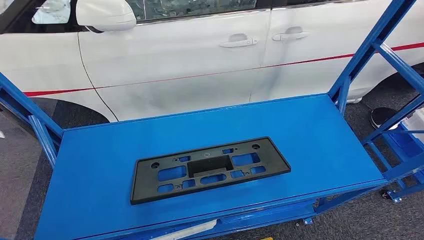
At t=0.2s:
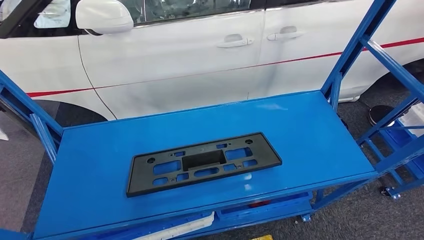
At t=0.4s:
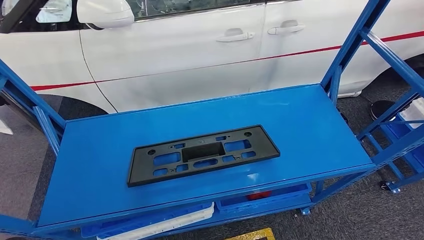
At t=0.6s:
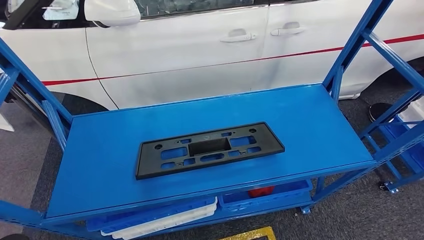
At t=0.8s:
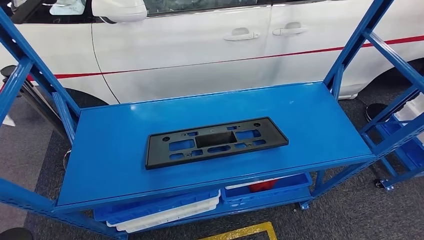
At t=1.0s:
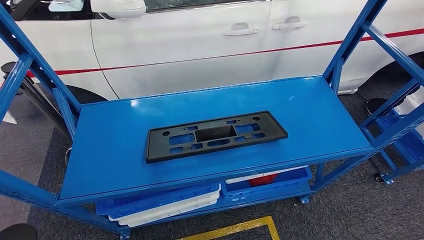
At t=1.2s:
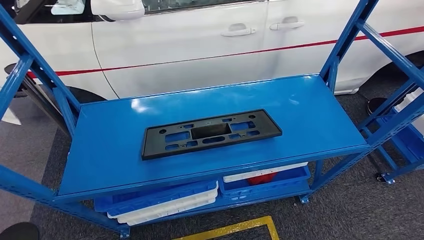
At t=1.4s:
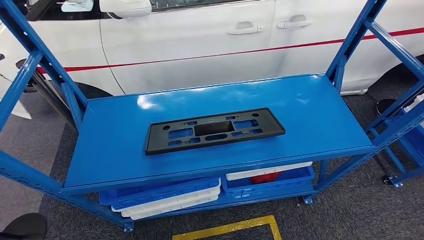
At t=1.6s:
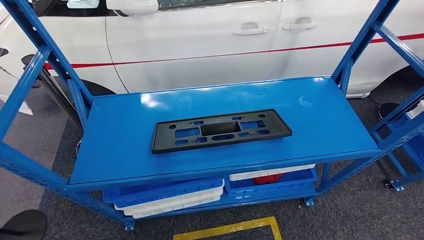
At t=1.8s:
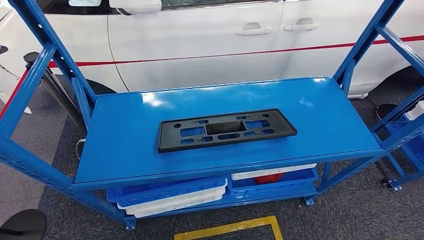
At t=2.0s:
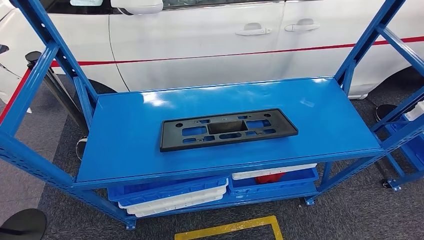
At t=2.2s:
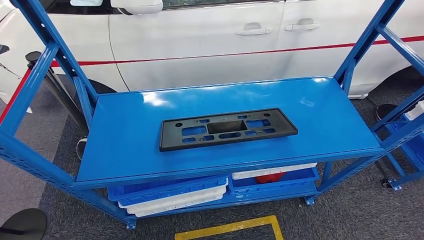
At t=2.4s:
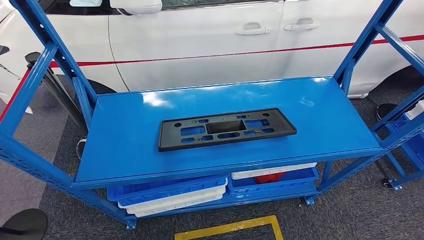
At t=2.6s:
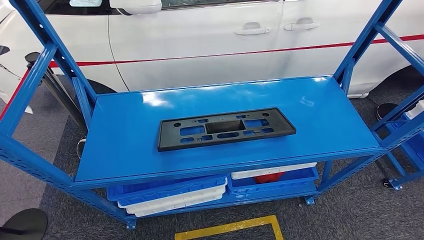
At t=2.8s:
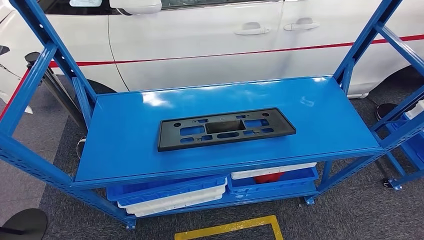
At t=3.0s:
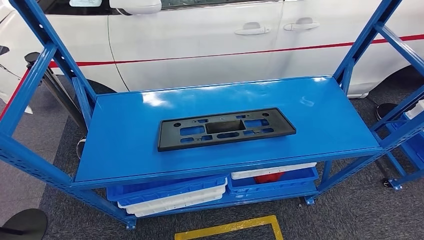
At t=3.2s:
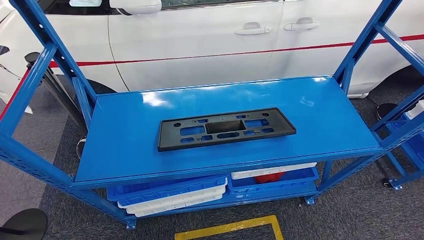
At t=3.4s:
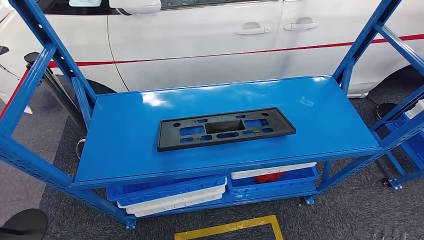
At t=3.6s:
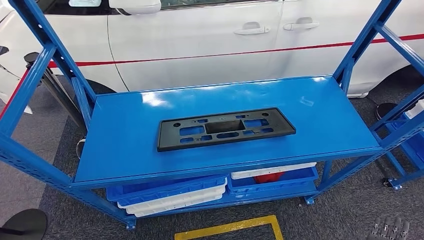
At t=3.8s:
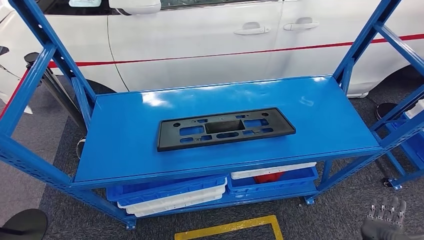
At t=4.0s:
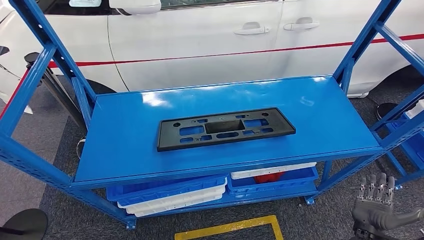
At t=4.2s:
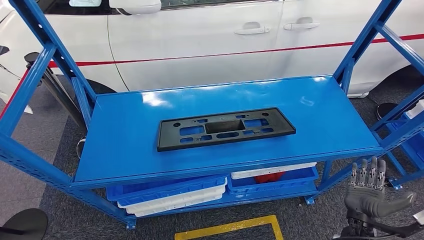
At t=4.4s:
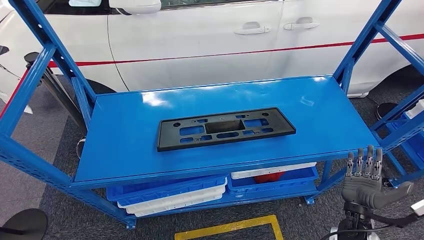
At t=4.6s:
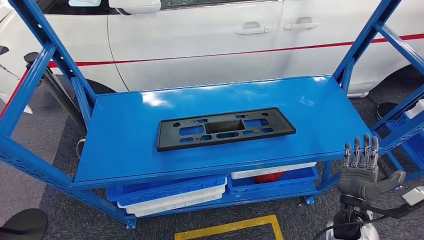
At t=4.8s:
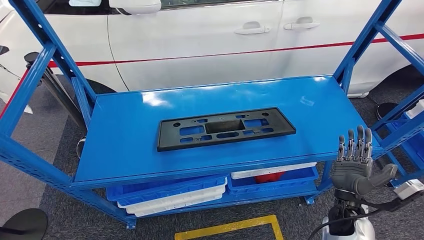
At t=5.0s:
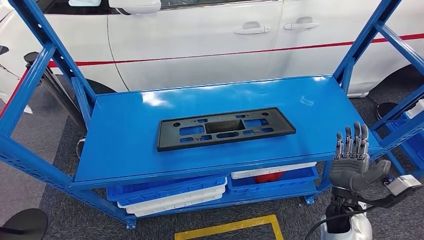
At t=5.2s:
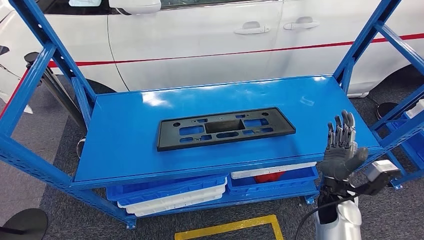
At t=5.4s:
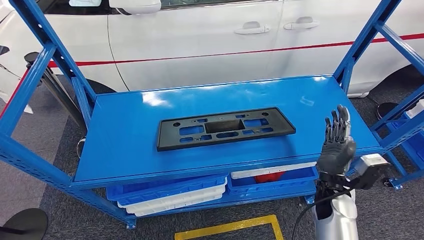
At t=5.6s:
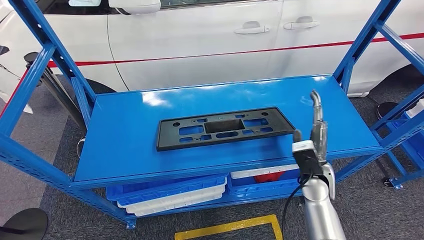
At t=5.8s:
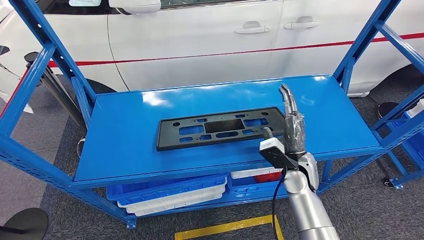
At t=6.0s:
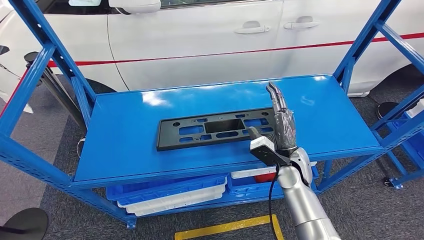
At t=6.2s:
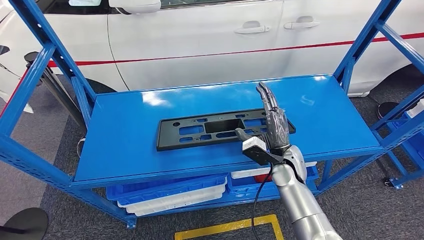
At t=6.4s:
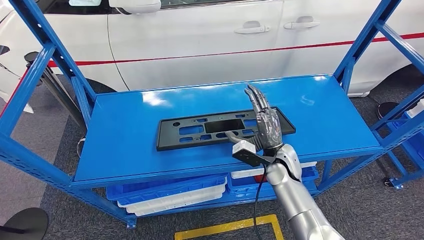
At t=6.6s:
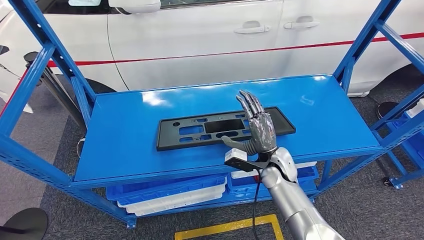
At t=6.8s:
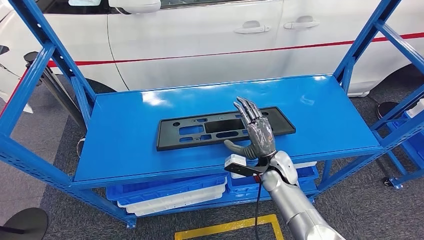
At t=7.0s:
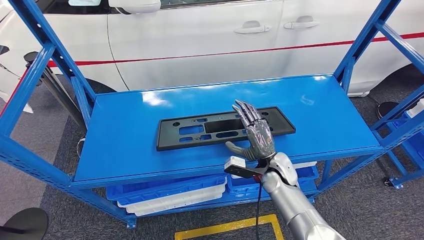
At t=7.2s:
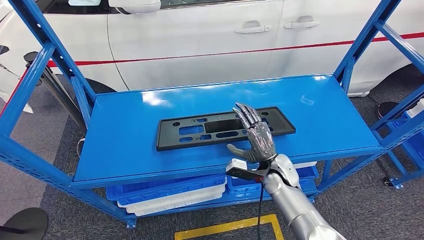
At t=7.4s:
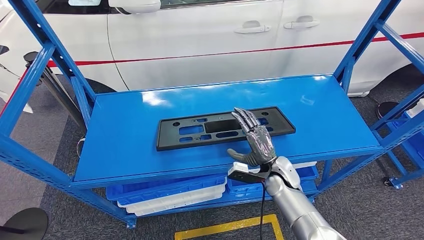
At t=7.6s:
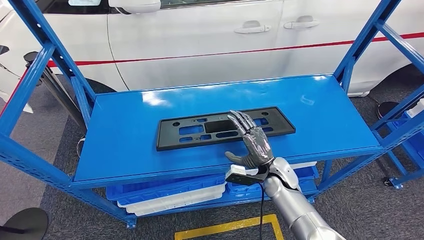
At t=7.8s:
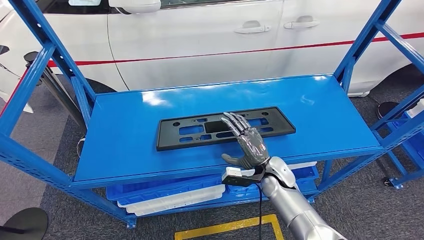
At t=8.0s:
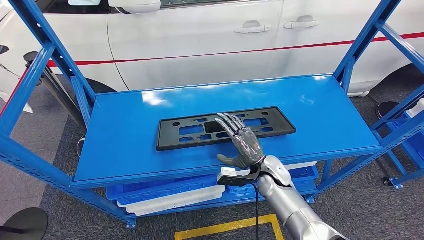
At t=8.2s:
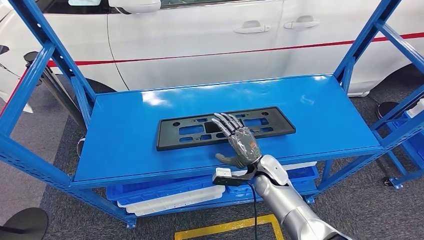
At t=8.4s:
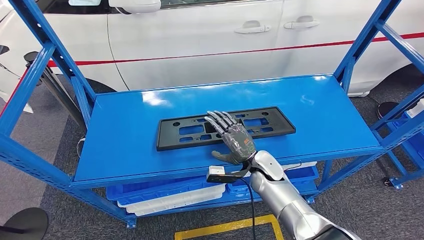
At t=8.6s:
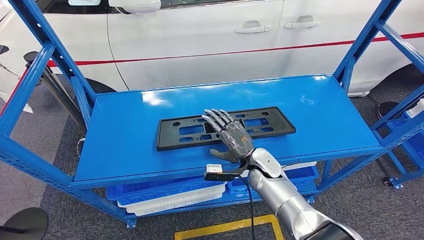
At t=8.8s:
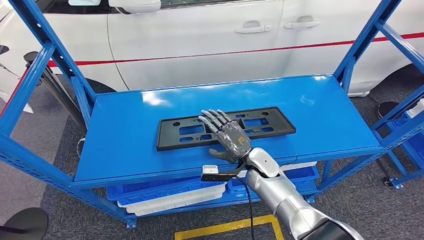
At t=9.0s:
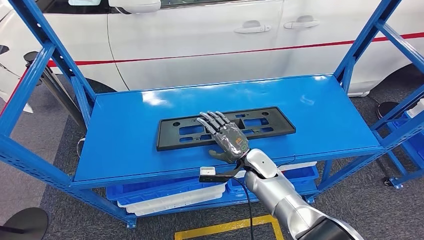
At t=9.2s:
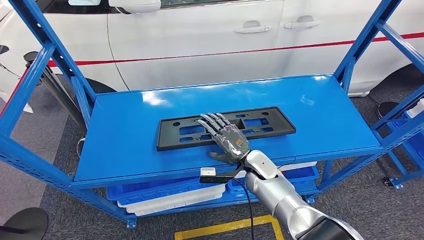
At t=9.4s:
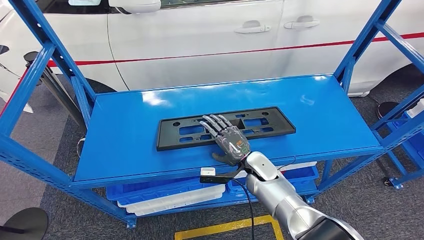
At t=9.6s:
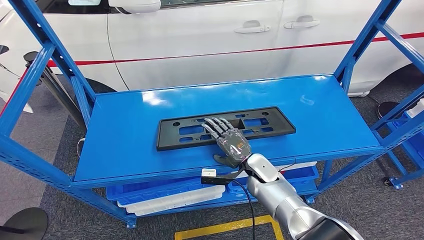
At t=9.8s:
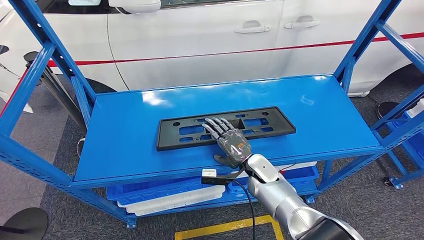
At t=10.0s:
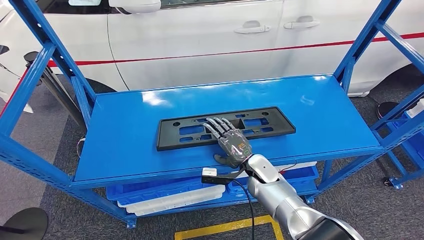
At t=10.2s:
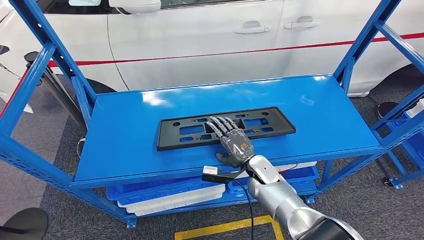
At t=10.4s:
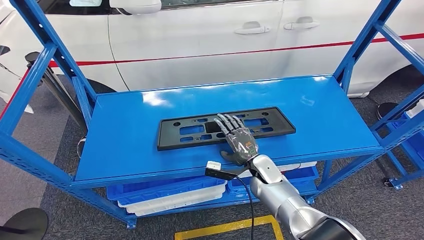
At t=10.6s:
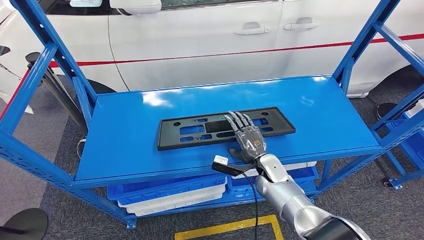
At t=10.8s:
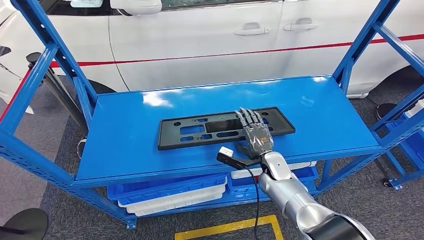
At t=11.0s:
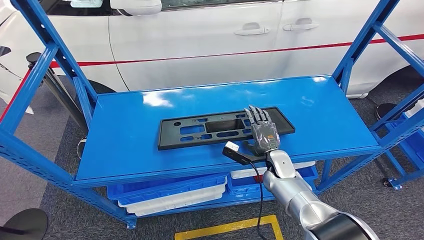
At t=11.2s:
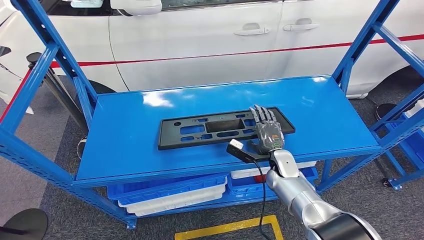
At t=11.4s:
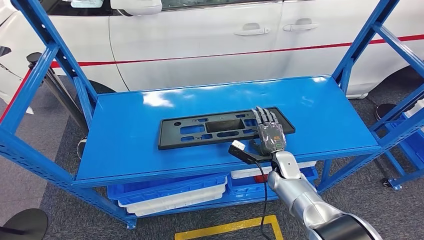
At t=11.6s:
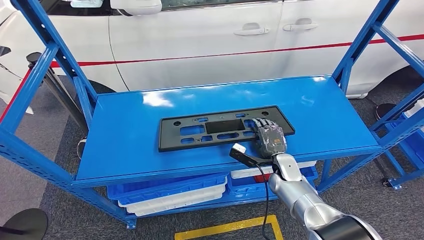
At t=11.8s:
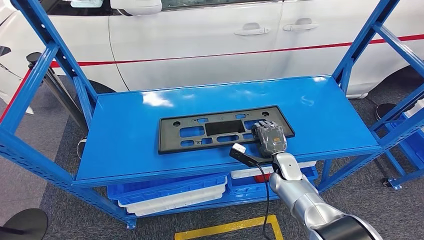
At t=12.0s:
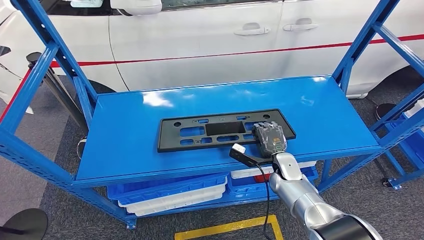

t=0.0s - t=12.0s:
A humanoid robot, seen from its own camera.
t=1.6s - t=3.0s: The right hand travels to the right by approximately 15 cm.
t=3.0s - t=4.4s: The right hand moves upward and forward, roughly 20 cm.
t=4.4s - t=6.0s: The right hand heads to the left, forward and upward, covering roughly 20 cm.
t=6.0s - t=7.6s: The right hand shifts roughly 5 cm downward.
t=7.6s - t=9.0s: The right hand heads to the left, covering approximately 5 cm.
t=9.0s - t=10.4s: The hands stay close to where they were, moving slightly.
t=10.4s - t=12.0s: The right hand shifts approximately 5 cm to the right.

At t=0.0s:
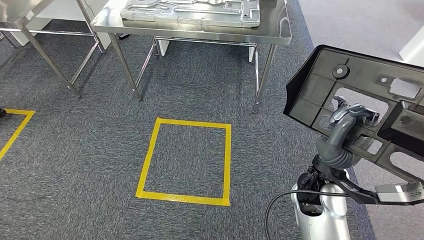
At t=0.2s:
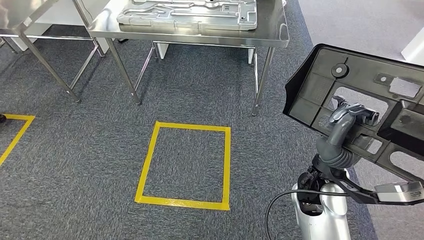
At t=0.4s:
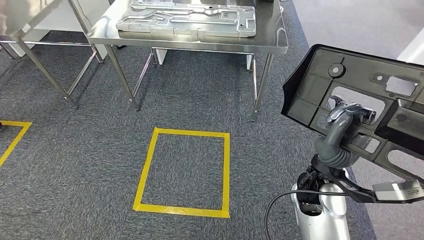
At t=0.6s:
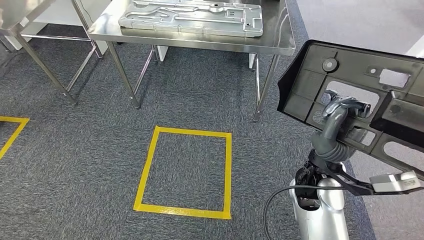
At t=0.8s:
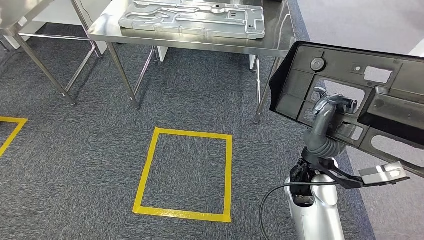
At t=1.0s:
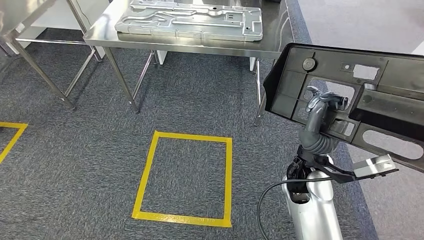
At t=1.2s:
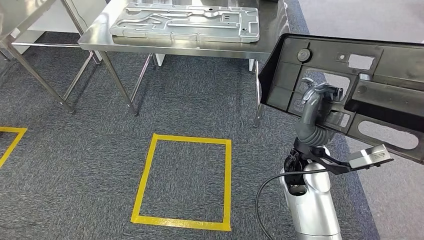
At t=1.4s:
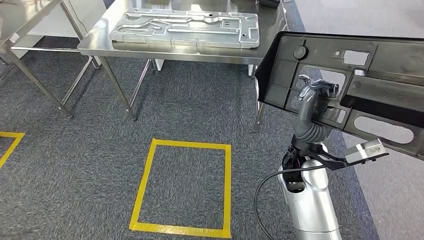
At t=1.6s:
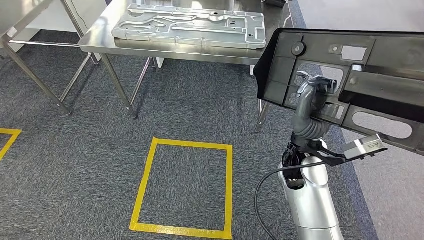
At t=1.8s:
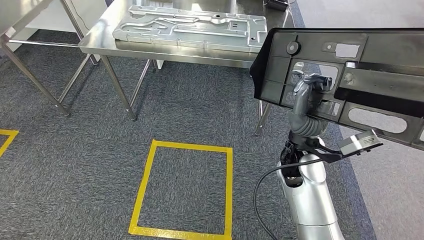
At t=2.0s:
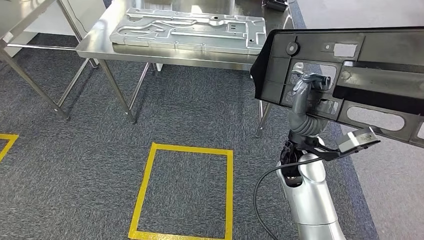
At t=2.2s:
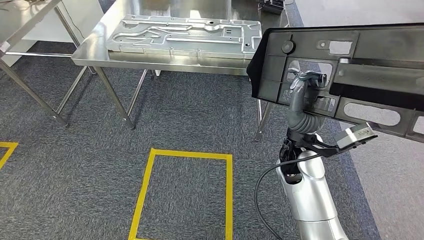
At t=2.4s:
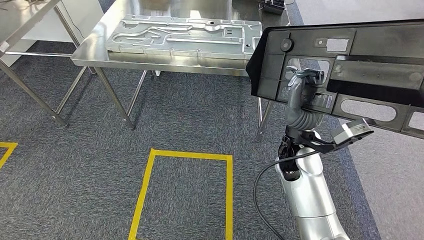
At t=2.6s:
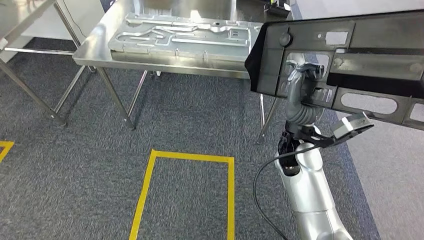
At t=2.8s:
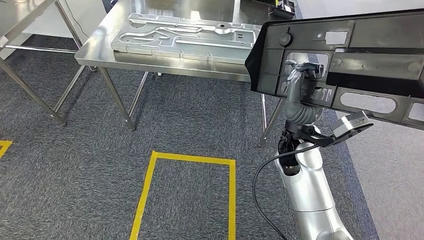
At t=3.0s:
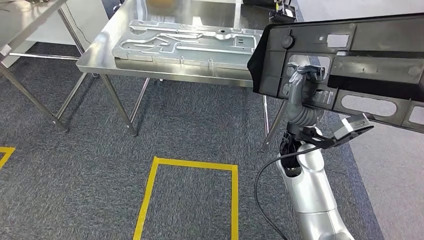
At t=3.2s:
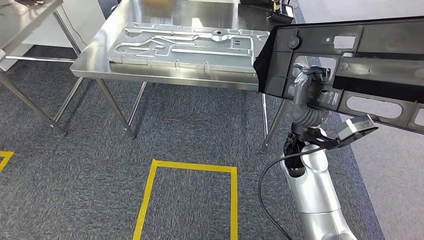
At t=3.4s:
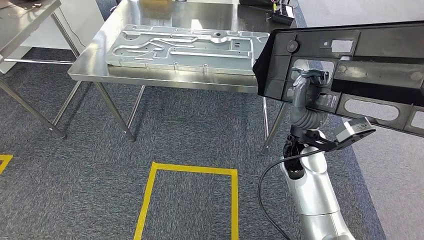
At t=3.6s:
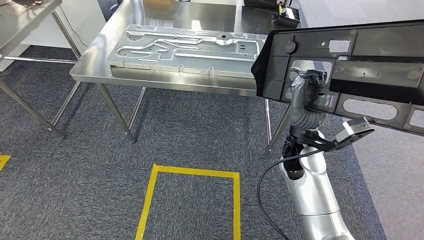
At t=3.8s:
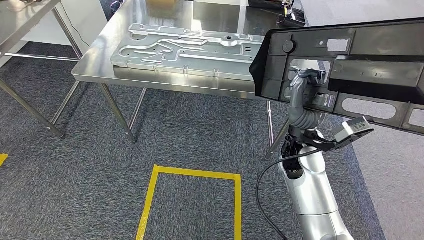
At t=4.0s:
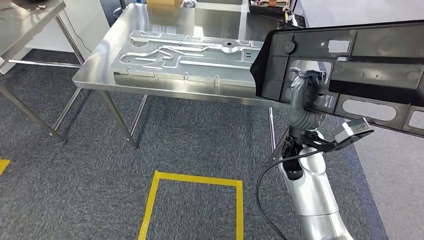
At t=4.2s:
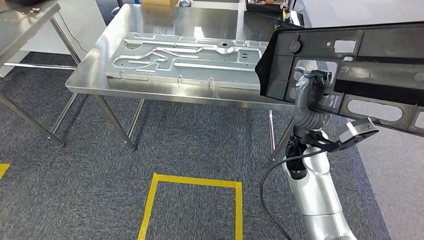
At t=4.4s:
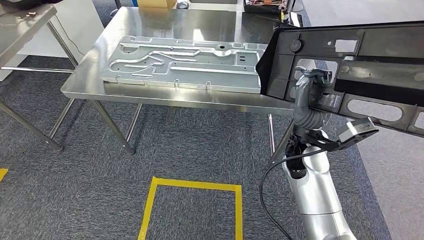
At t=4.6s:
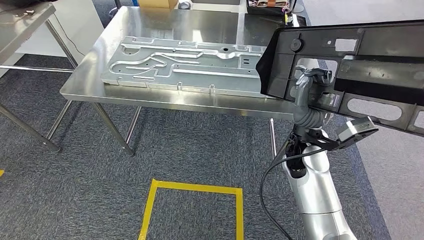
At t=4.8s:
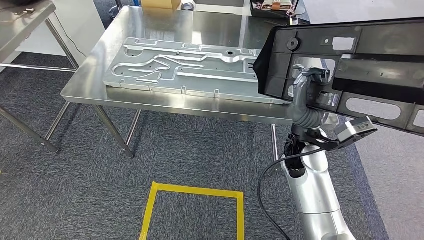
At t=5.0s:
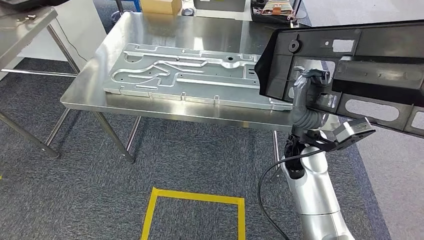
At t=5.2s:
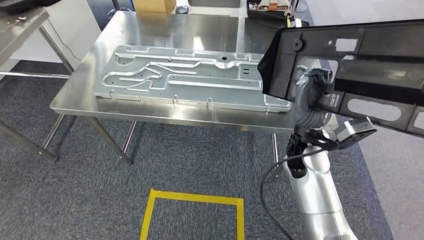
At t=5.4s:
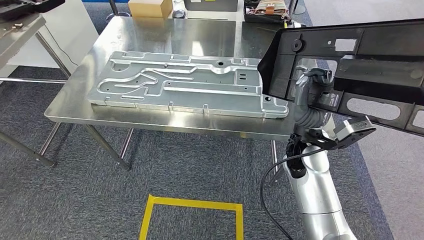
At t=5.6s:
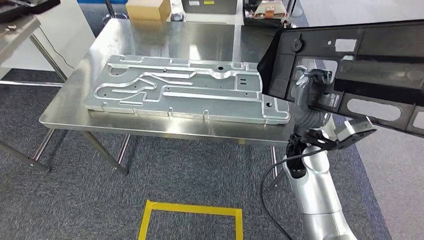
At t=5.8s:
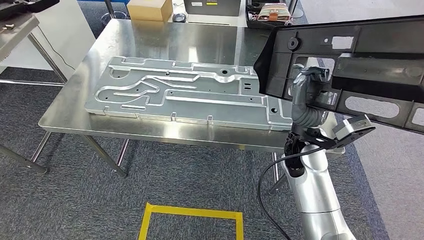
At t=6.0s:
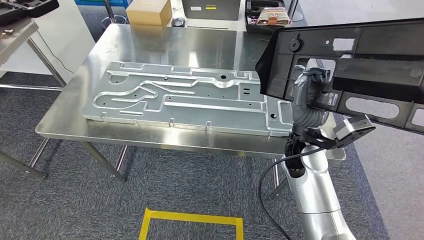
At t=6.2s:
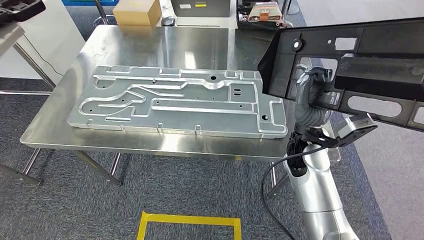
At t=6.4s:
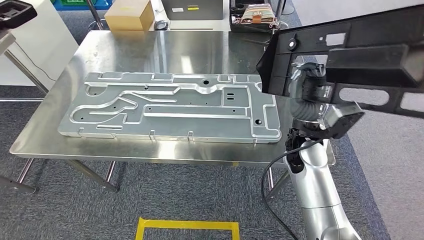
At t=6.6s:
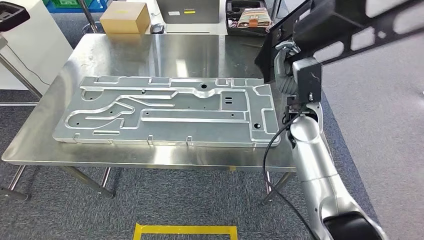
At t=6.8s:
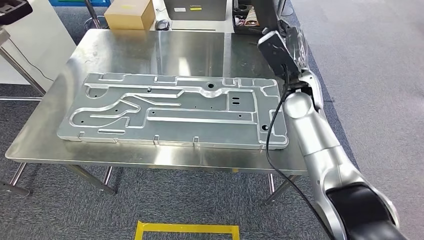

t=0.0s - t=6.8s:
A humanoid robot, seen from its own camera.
Step, t=0.0s - t=5.8s: Move the large material to the workbench.
